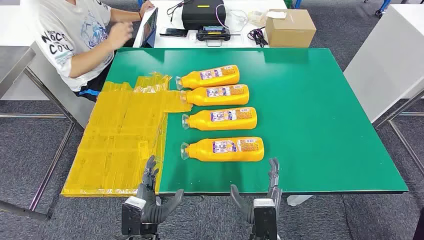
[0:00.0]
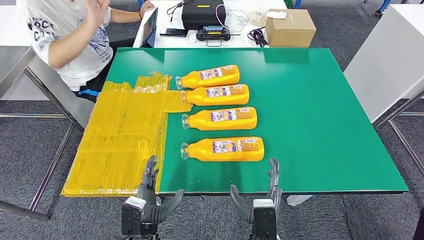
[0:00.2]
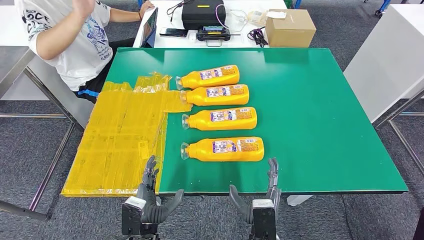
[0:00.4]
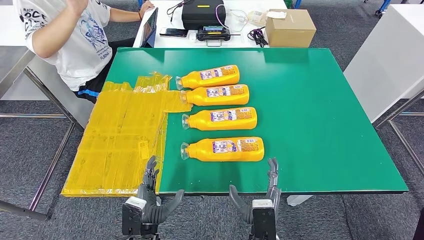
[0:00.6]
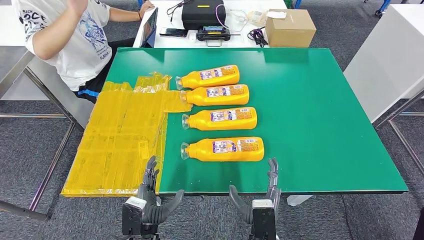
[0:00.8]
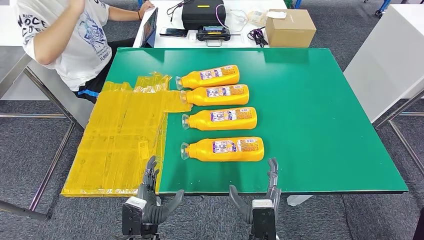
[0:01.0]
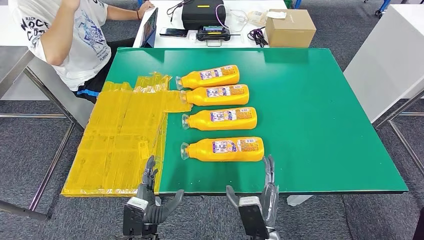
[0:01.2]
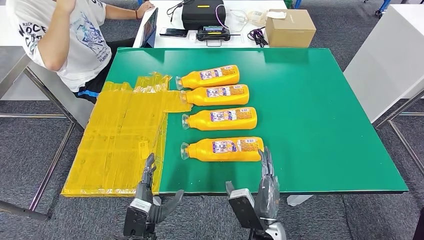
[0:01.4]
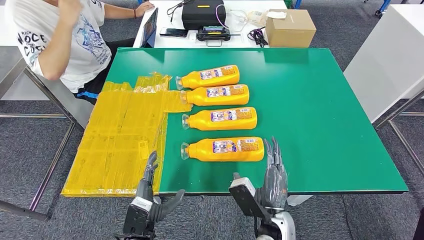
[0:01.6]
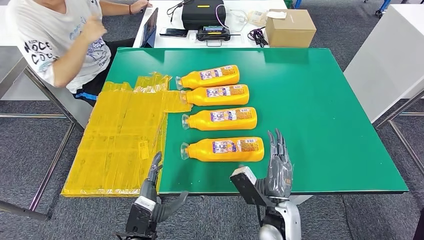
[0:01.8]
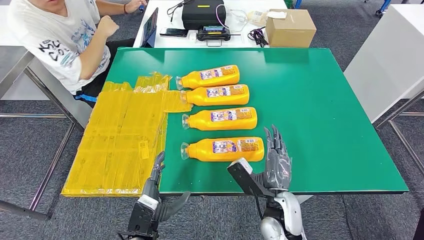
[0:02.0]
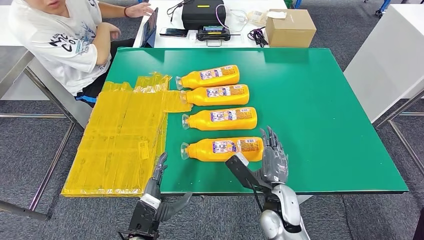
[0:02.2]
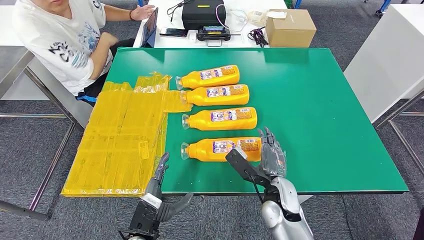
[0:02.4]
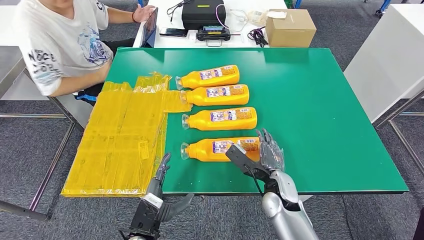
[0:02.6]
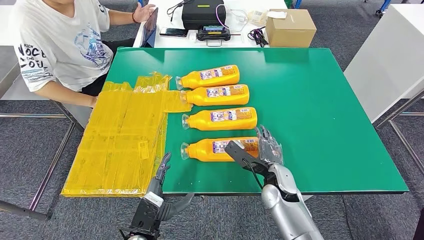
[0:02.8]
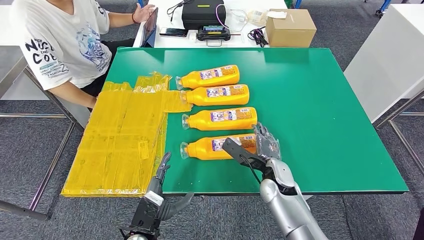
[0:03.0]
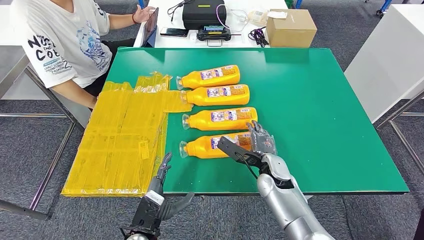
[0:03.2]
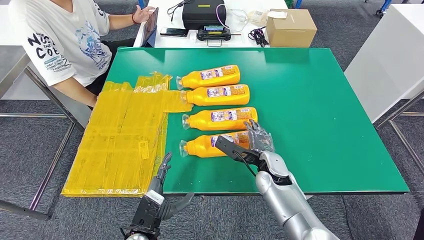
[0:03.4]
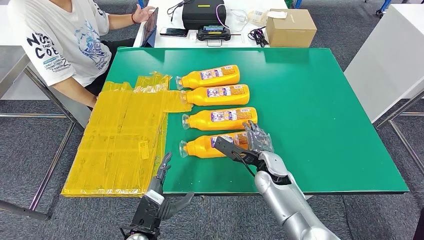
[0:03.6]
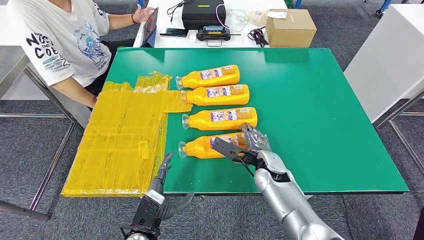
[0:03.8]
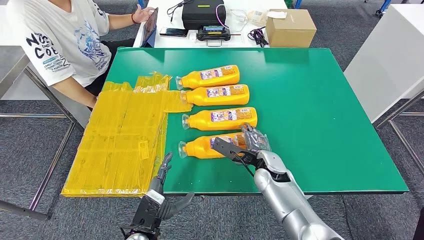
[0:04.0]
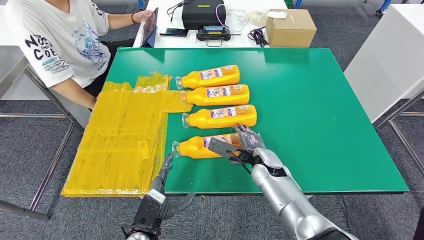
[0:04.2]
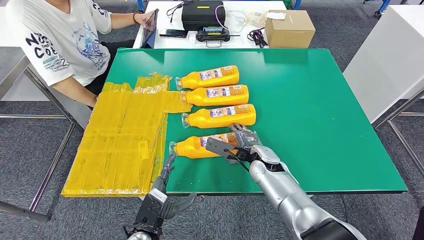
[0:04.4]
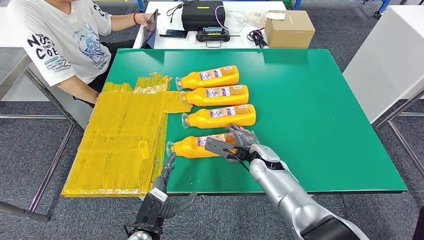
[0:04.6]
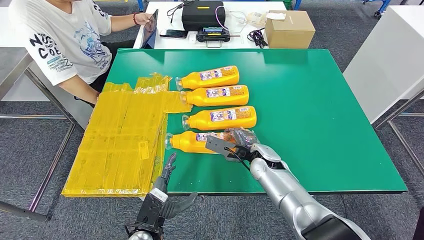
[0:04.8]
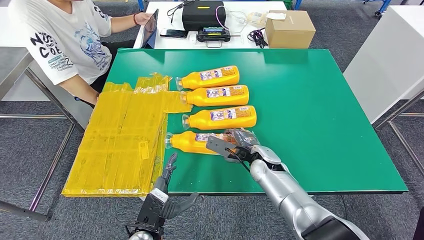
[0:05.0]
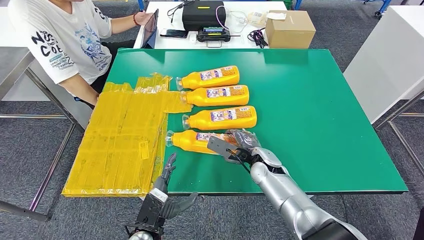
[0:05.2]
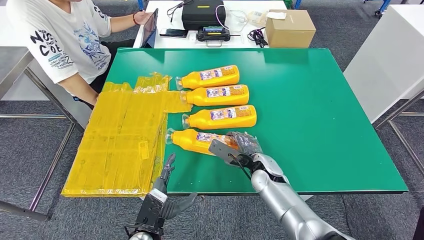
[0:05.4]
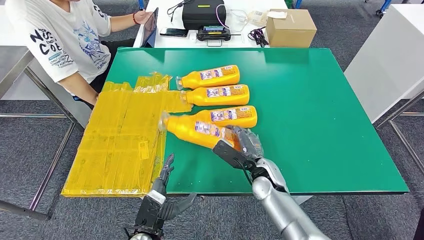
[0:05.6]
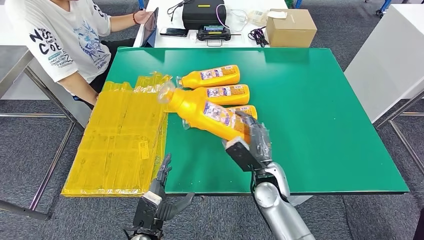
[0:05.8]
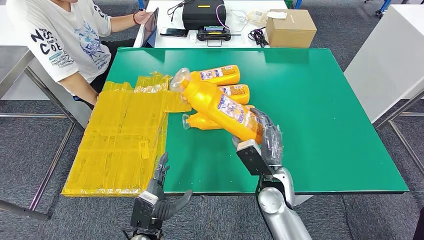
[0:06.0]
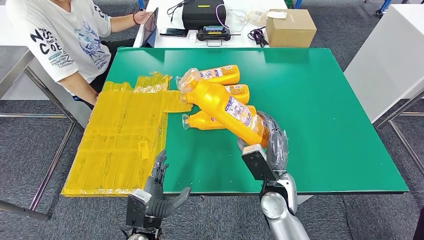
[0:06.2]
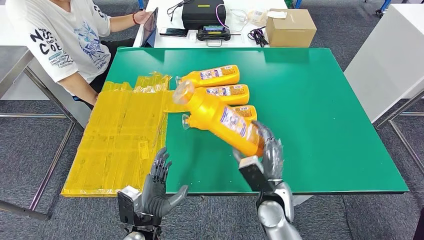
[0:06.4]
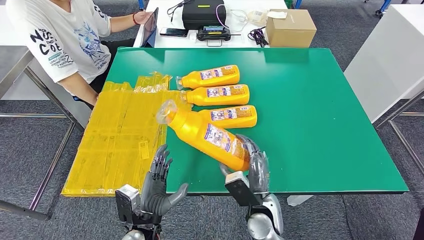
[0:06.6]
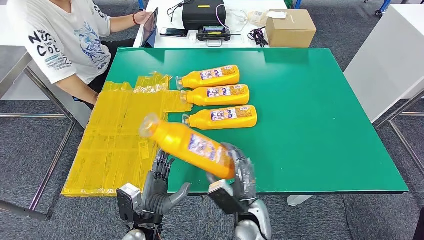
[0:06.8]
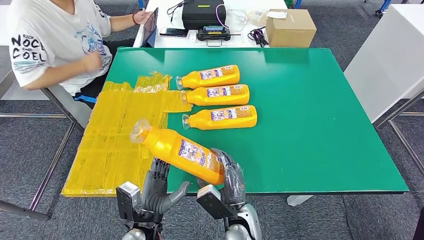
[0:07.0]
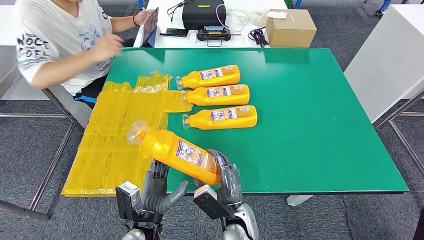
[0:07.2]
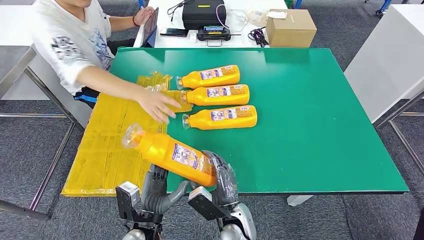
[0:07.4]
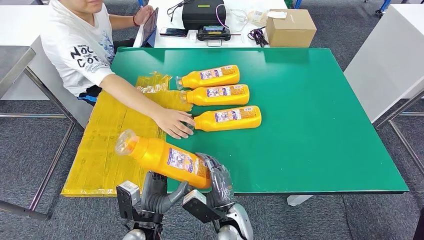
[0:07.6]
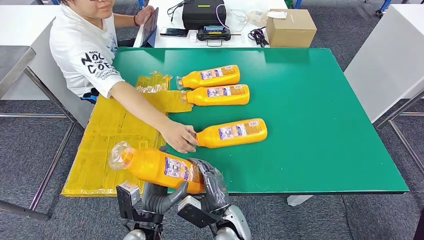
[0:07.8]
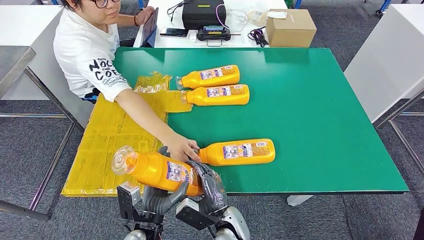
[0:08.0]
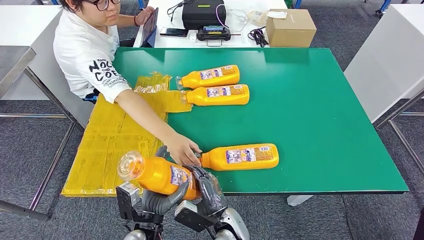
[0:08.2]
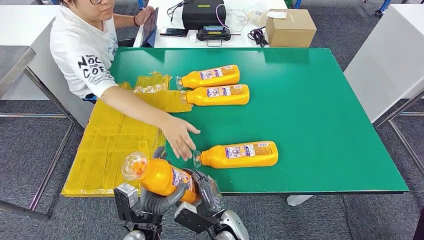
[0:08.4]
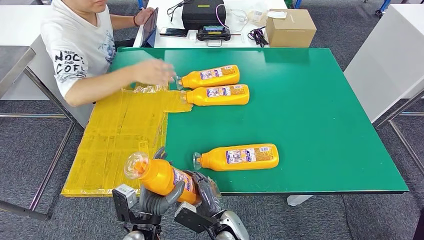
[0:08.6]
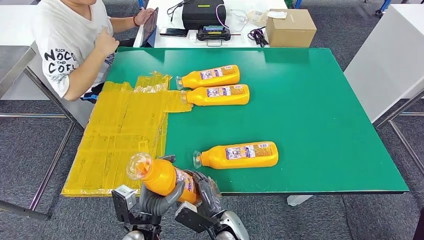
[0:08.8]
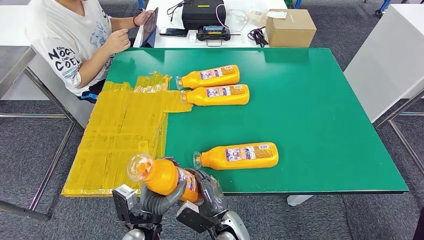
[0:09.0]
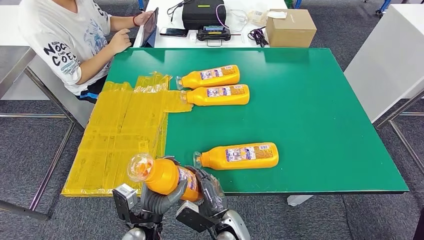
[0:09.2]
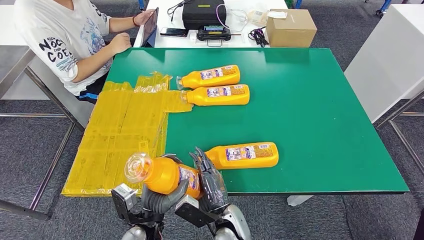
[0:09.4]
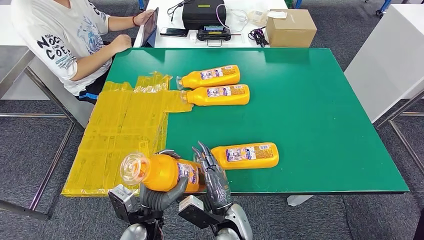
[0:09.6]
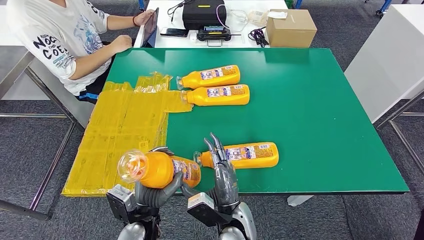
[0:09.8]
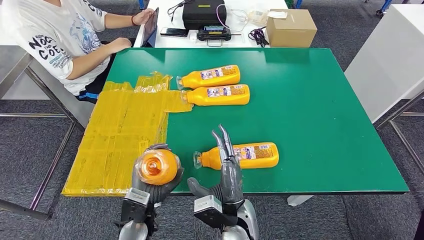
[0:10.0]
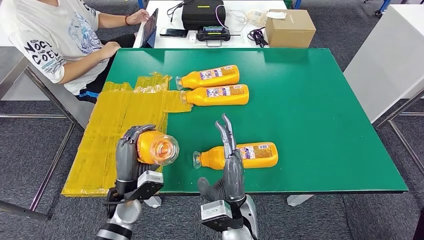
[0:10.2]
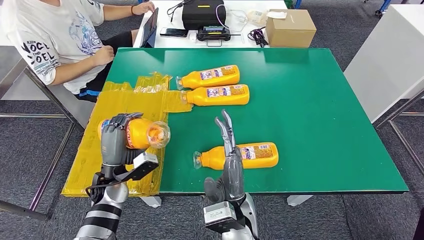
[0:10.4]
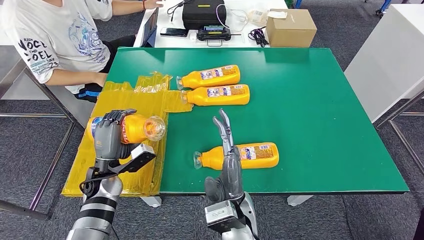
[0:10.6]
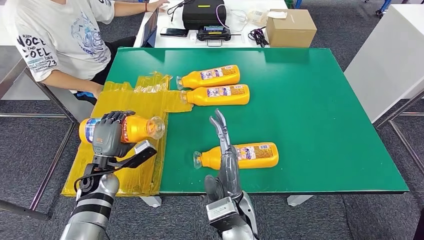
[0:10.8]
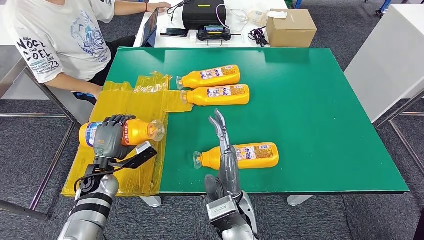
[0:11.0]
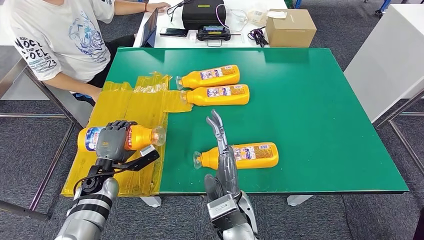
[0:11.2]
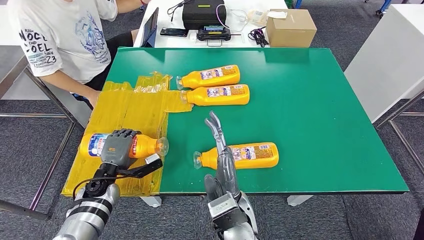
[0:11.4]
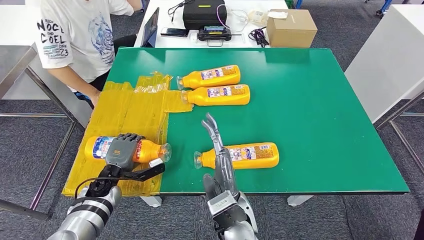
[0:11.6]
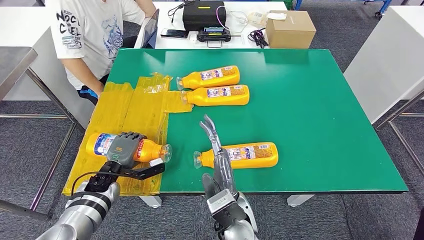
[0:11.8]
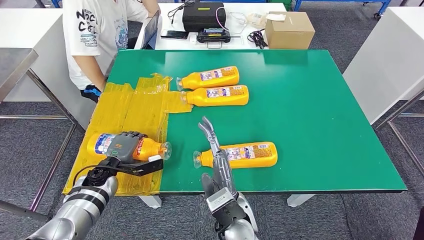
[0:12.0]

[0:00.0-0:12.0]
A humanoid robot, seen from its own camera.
Step, 0:00.0 to 0:07.6: Take the fast-moving consumer goods bottle from the table.
0:01.6 to 0:03.0: The right hand travels forward by roughly 15 cm.
0:03.0 to 0:04.4: There are only small adjustments of the hands.
0:04.4 to 0:06.0: The right hand moves backward, some 10 cm.
0:07.6 to 0:09.0: The hands stay close to where they were, moving slightly.
0:09.0 to 0:10.4: The left hand shifts about 15 cm forward and to the left. Meanwhile the right hand heads upward, covering about 15 cm.

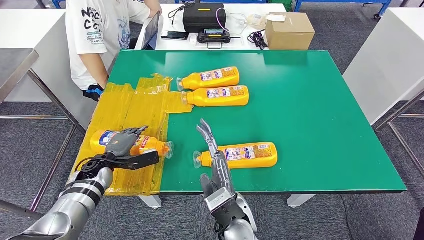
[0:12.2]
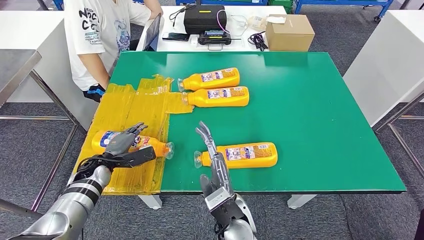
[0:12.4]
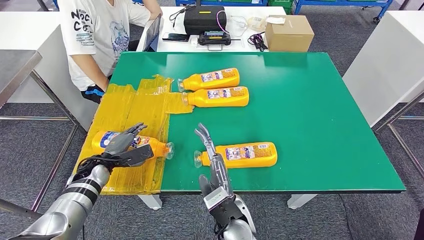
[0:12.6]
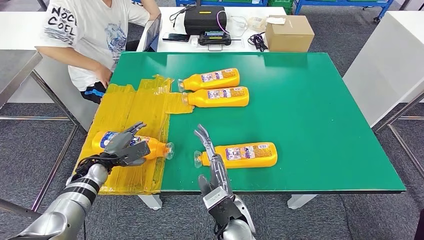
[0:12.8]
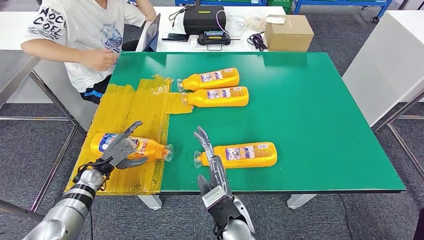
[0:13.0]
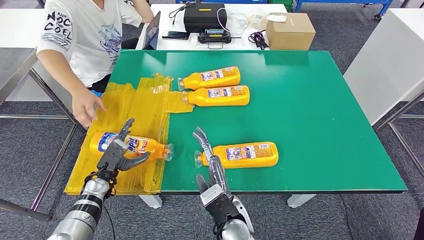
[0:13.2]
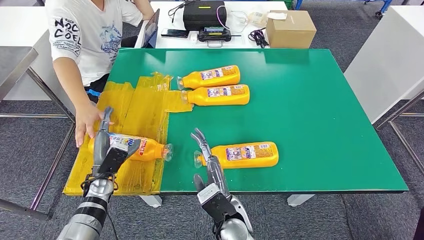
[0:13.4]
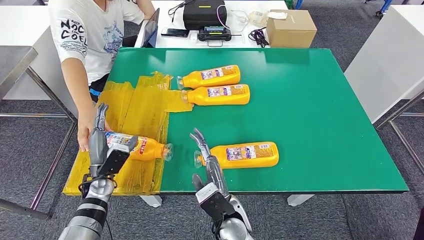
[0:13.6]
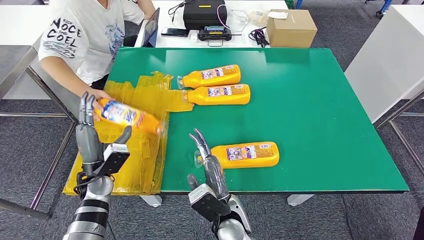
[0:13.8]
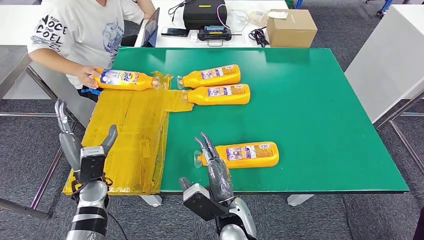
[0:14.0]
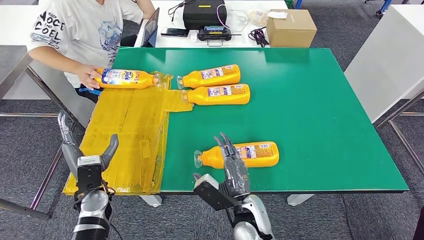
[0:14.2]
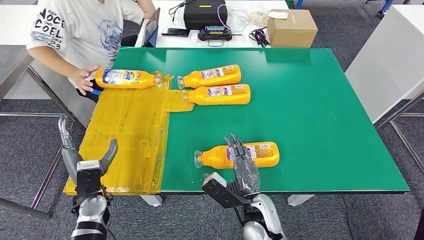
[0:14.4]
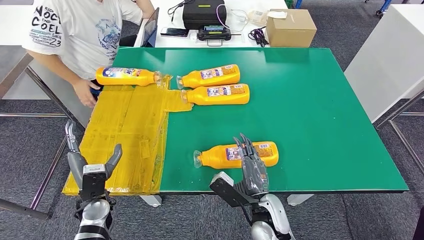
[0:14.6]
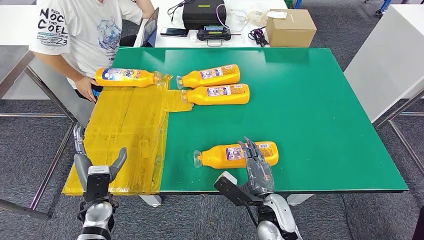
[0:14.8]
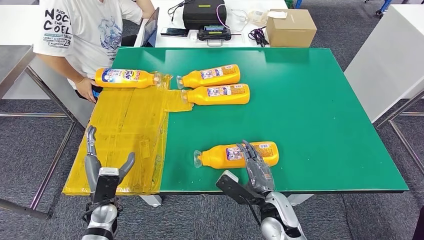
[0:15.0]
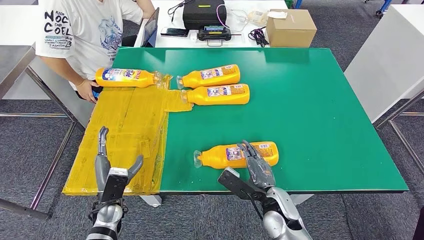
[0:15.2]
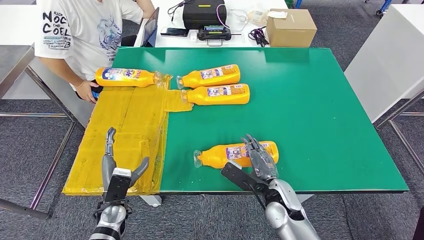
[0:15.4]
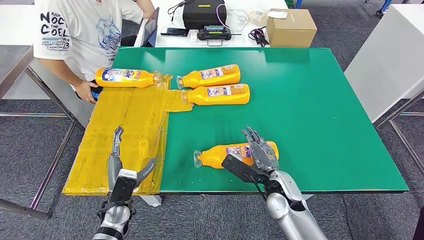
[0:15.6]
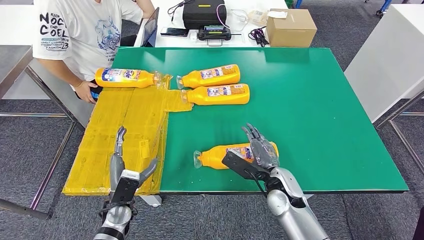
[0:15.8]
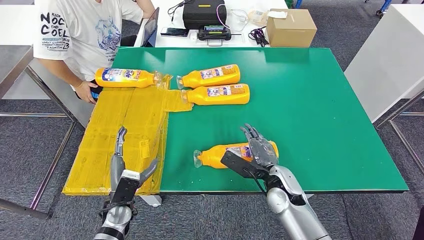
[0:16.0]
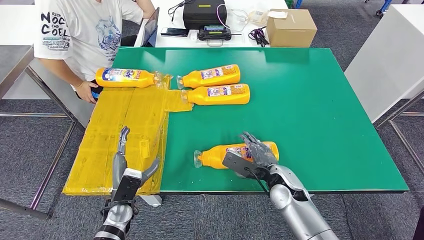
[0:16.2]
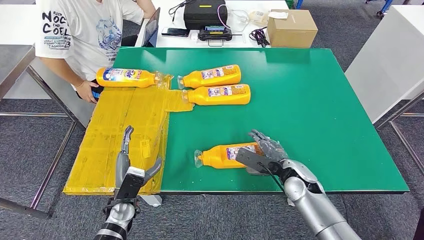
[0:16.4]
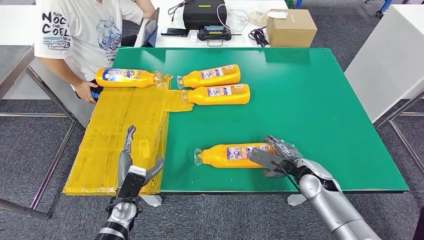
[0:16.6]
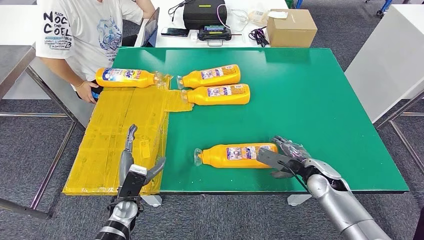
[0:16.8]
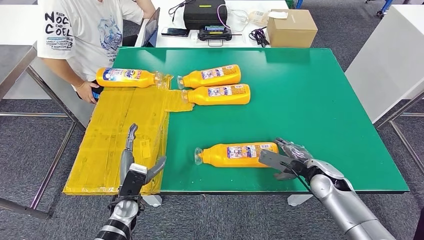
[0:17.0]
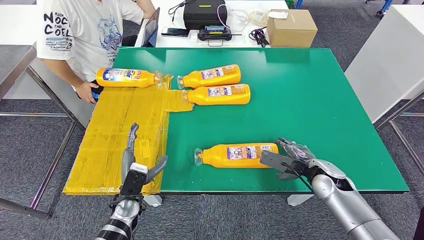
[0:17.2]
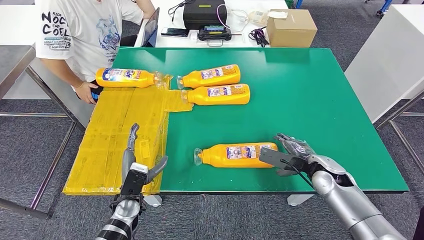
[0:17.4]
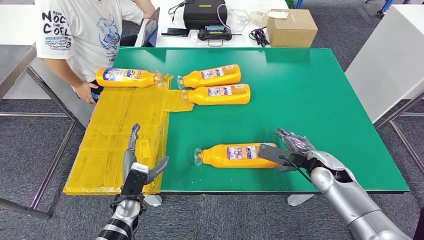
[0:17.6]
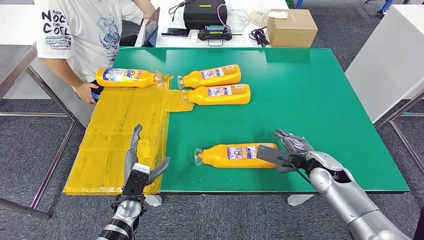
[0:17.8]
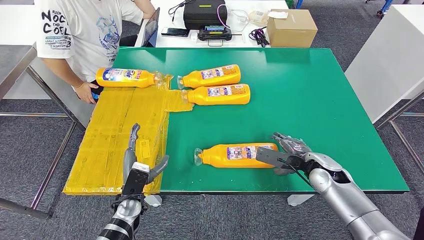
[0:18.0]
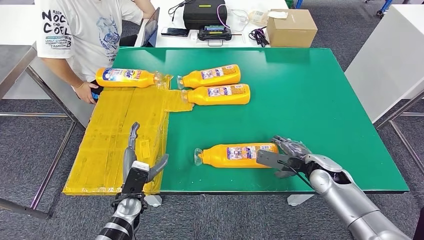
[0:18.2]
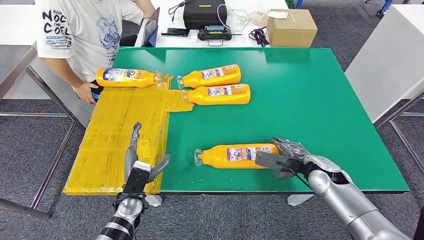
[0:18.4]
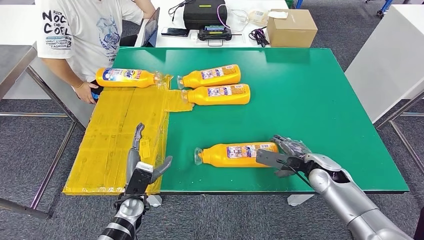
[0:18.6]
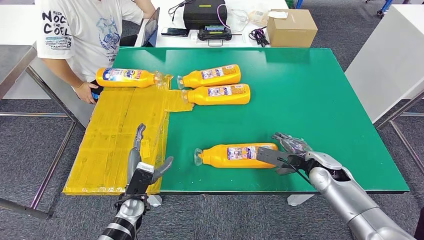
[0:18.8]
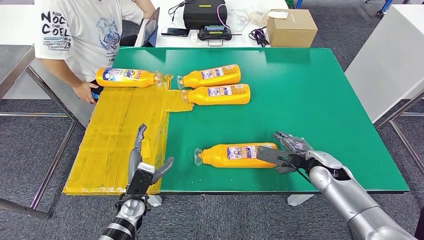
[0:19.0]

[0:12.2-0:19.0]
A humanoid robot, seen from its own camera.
0:13.6 to 0:15.0: The right hand goes approximately 10 cm to the right. Meanwhile the left hand moves backward, roughly 5 cm.
0:15.0 to 0:16.2: The right hand goes approximately 5 cm forward.
0:16.2 to 0:17.6: The right hand heads to the right, covering roughly 10 cm.
0:17.6 to 0:19.0: The hands make only small movements.
